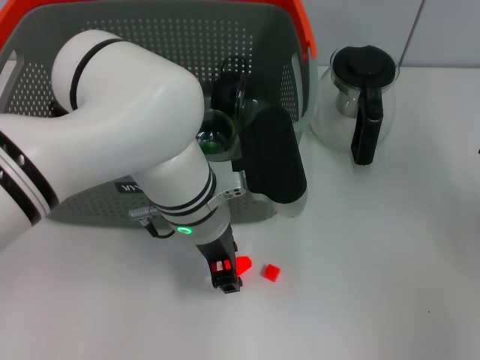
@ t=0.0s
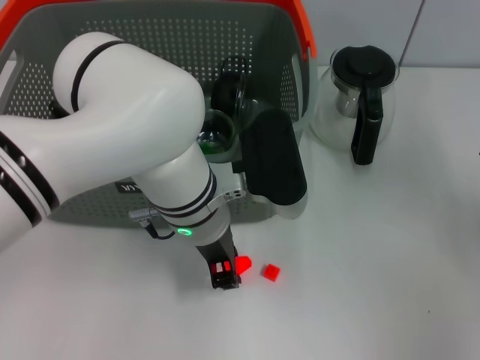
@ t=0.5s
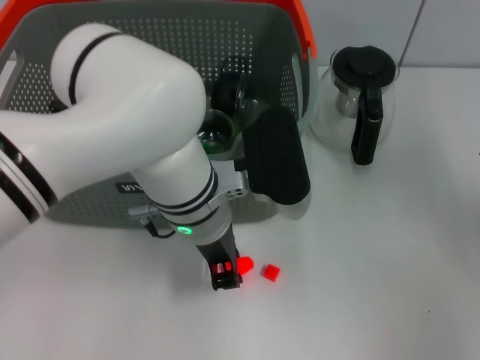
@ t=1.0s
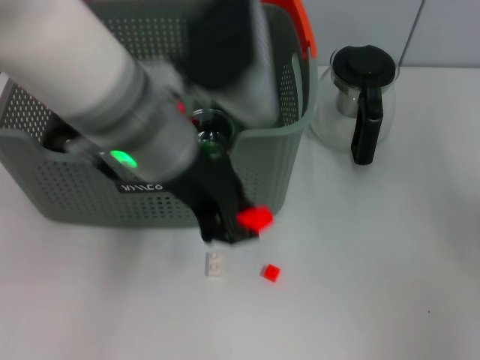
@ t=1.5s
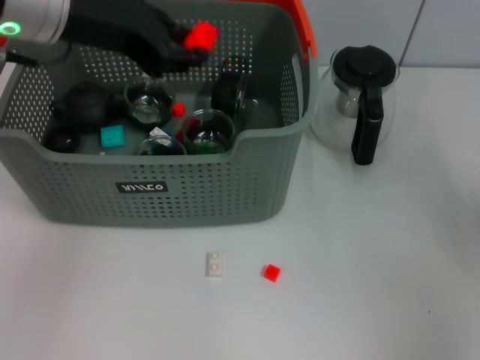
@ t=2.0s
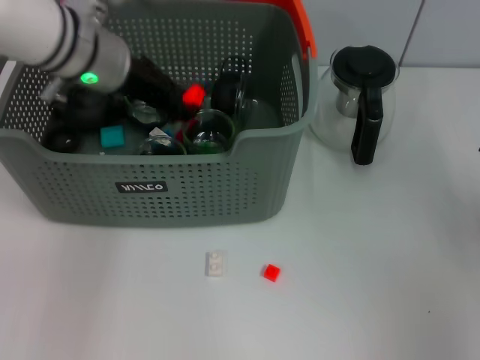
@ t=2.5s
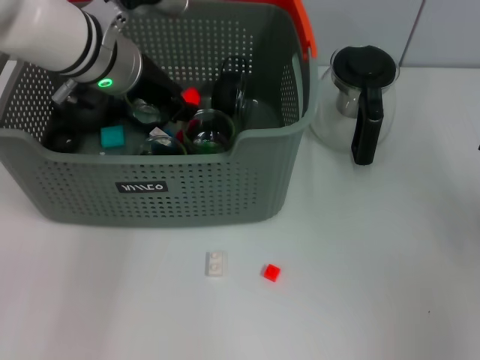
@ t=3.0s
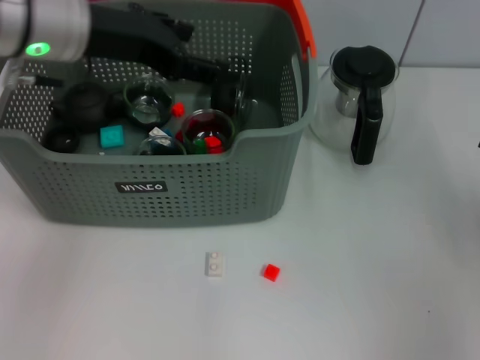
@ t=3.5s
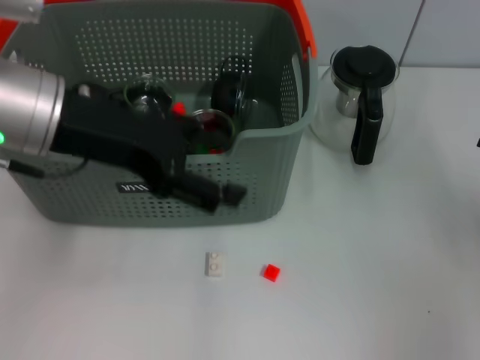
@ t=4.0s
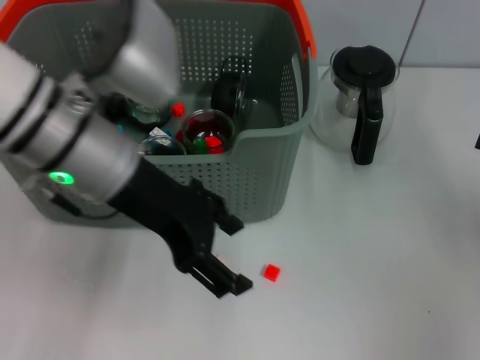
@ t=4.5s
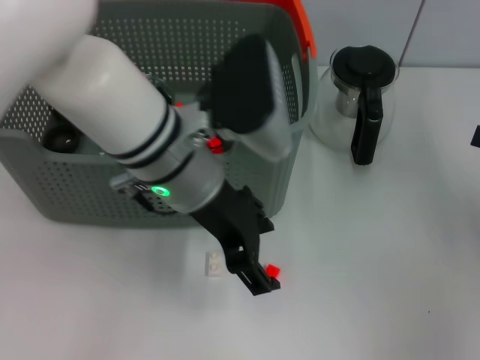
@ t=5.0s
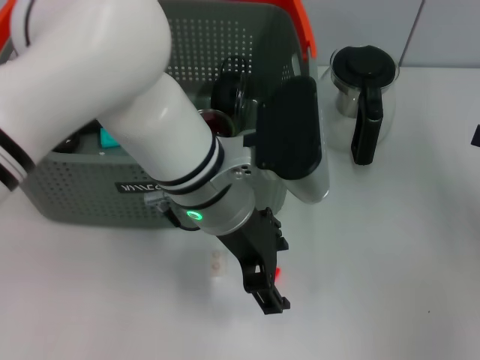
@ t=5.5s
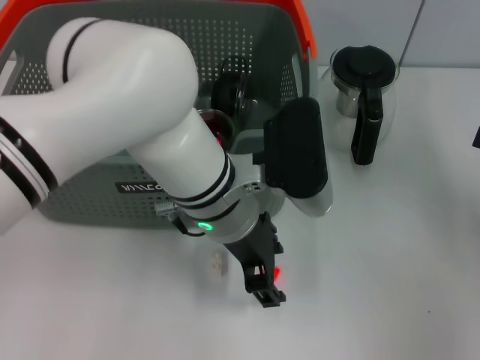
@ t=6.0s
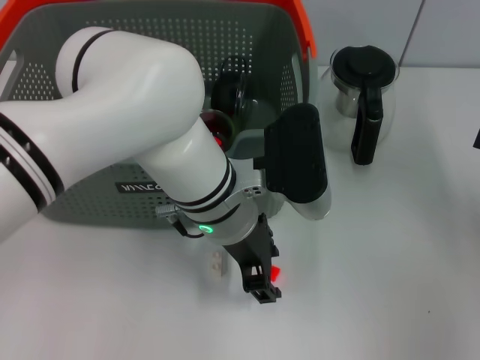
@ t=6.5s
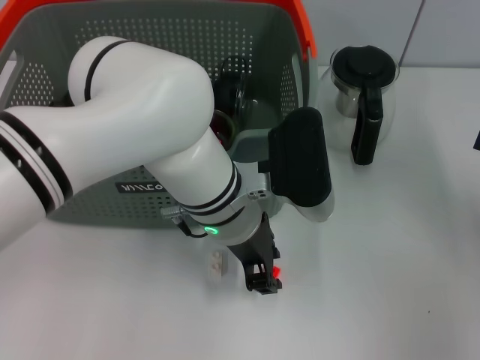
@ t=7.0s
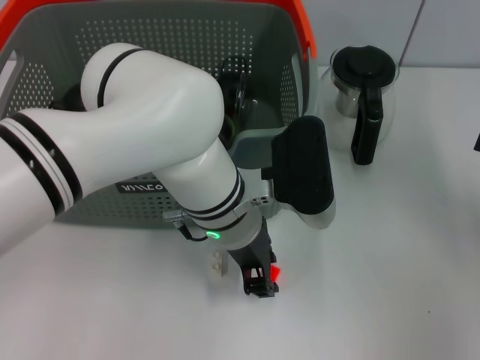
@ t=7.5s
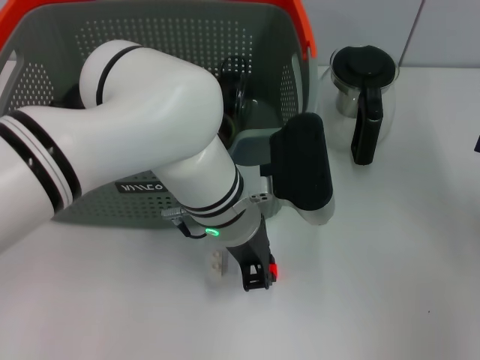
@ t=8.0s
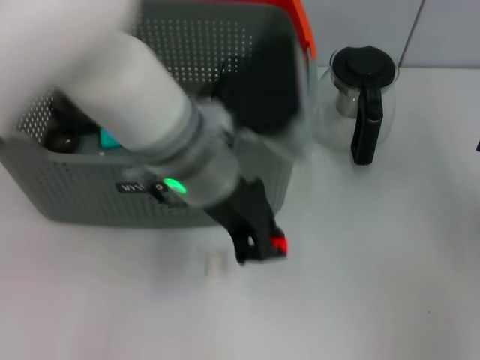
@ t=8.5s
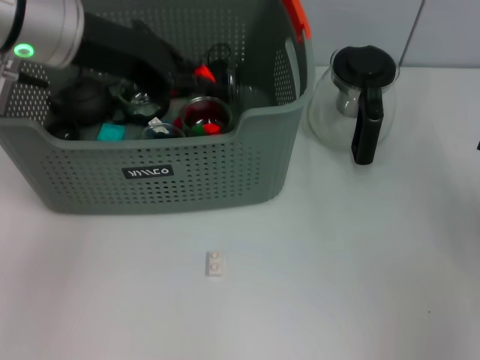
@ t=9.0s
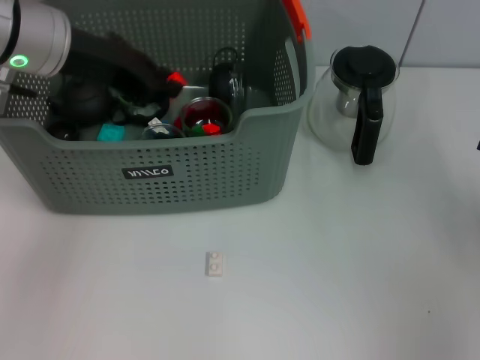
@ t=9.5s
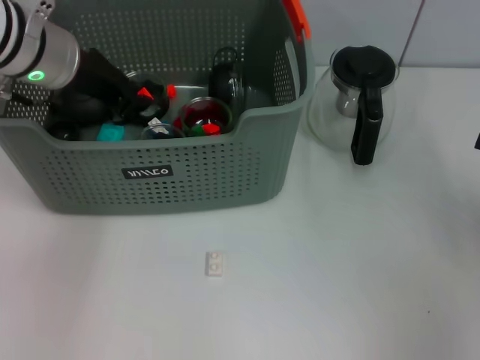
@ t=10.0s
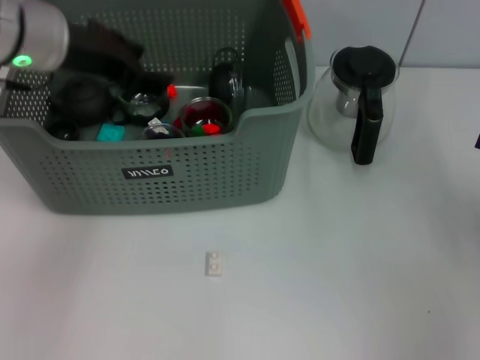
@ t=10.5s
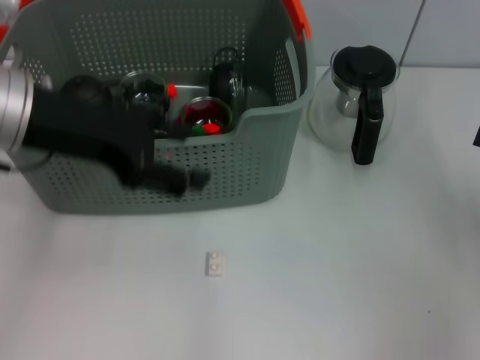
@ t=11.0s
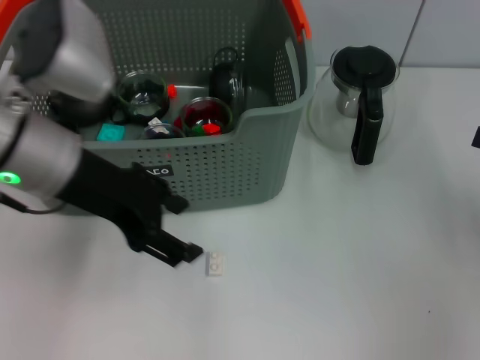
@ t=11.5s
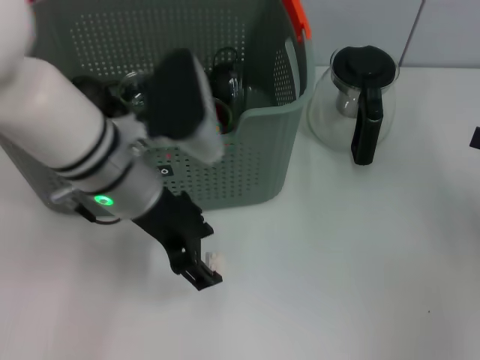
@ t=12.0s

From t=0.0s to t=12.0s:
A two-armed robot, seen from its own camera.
Task of the whole recording: pick up the teacup on the table and place it into the storage bin, pick up the block on the table and place it into the storage bin.
Step, from t=1.0s to t=3.0s: Place the orange block in the storage box with left gripper.
Step, from t=3.5s to t=7.5s: Grasp the orange block with left gripper.
Step, from t=8.0s to t=10.5s: Place the orange block in the storage box with left gripper.
From t=0.0s to t=2.0s: The left gripper goes approximately 20 cm upward and to the left.
From t=2.0s to t=4.0s: The left gripper opens up.
From t=4.0s to t=6.0s: The left gripper travels to the right and downward by about 20 cm.
From t=6.0s to t=8.0s: The left gripper closes its fingers.
From t=8.0s to t=10.0s: The left gripper shifts some 20 cm to the left, upward and forward.
From t=10.0s to t=12.0s: The left gripper moves backward and to the right, some 10 cm, and opens its fingers.

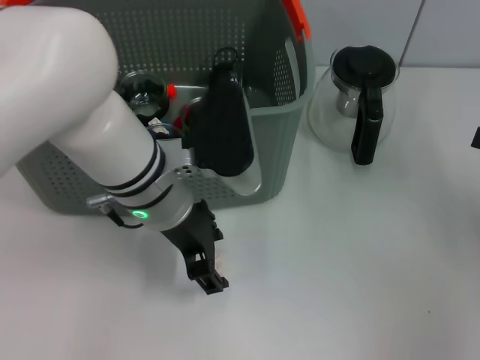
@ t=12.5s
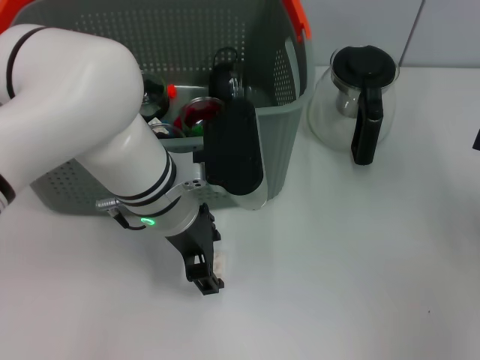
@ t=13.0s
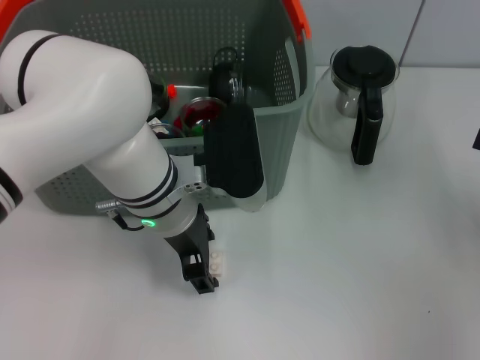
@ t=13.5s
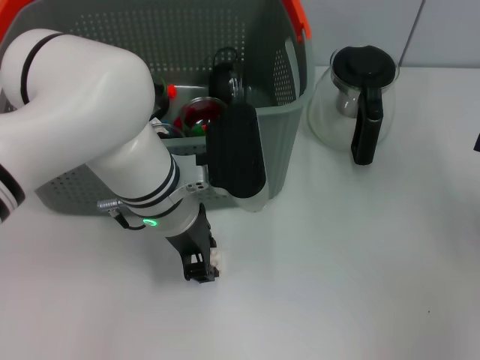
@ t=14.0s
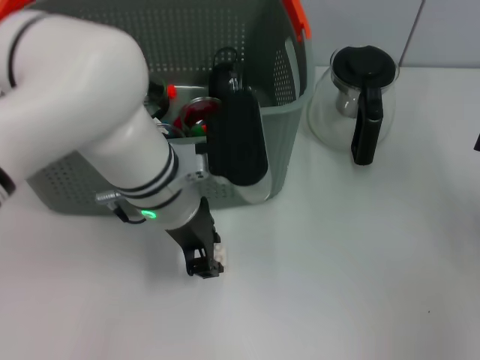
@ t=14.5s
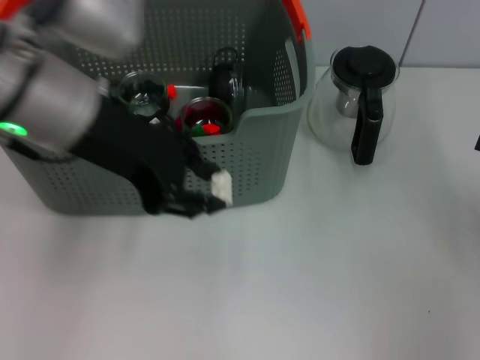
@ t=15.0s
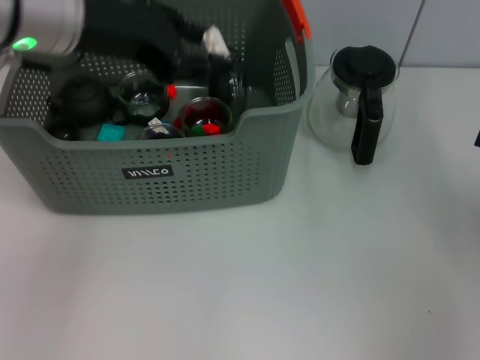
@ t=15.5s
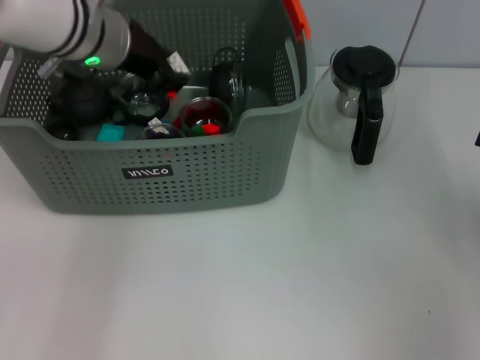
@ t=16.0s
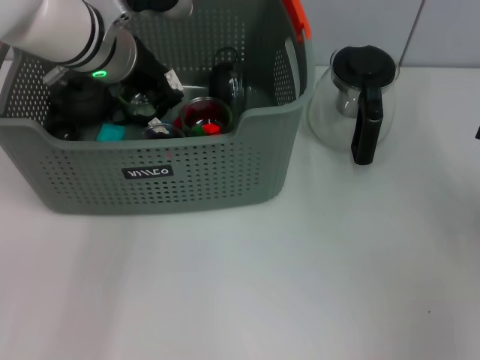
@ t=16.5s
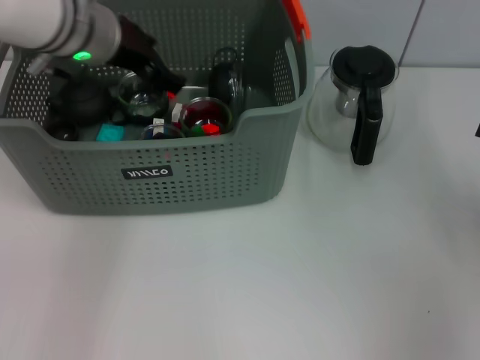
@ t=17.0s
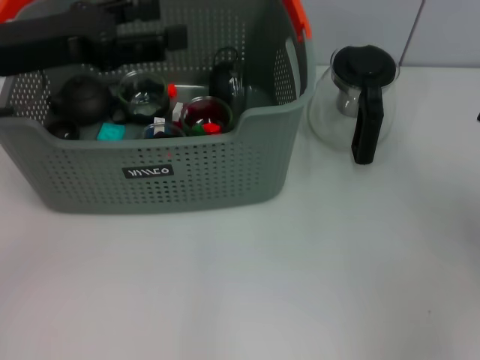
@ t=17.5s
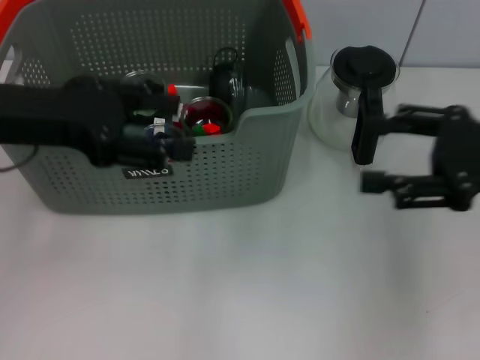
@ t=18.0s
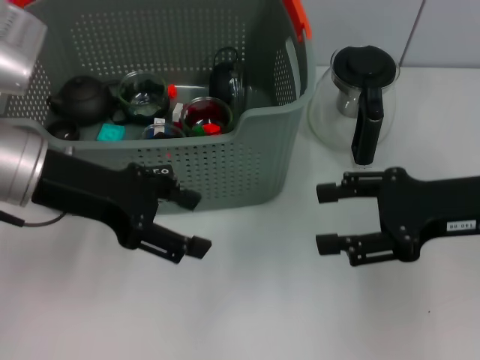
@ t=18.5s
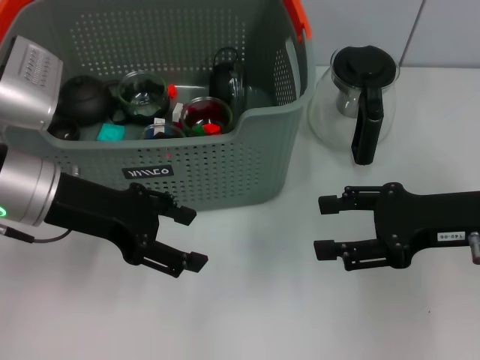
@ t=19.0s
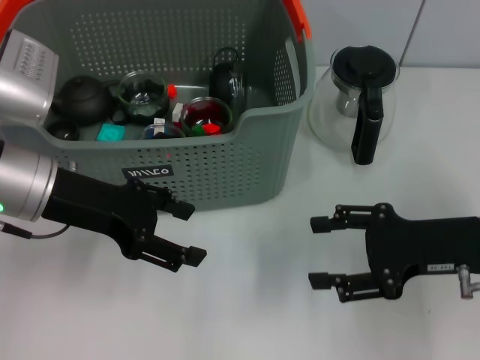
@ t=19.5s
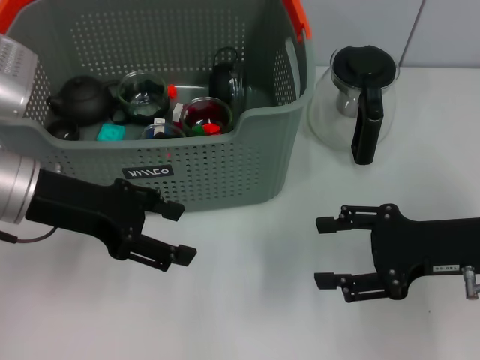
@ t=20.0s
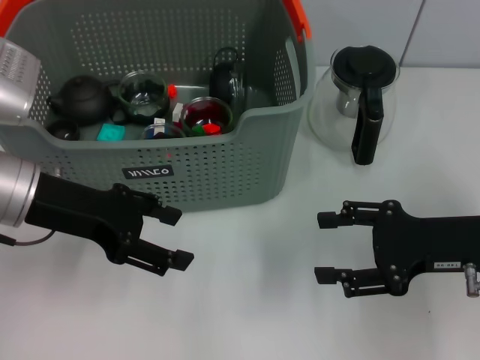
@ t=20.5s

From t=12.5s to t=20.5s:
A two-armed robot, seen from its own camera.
Task of the whole recording: pick up the teacup on the table and place it into the storage bin, pick up the block on the table and place it into the storage bin.
Step, from t=14.5s to t=17.0s: Place the white block in the storage box with left gripper.
From t=12.5s to t=14.5s: The left gripper closes.
From t=14.5s to t=16.5s: The left gripper shifts about 15 cm forward, to the left and upward.
From t=16.5s to t=18.5s: The left gripper moves backward and to the left, some 15 cm, and opens its fingers. Meanwhile the right gripper goes some 15 cm to the left.
